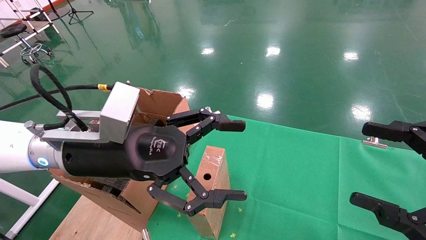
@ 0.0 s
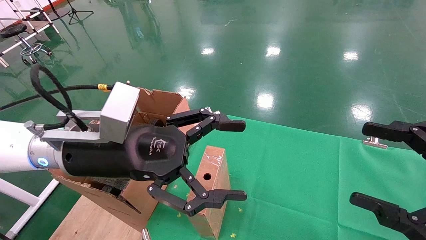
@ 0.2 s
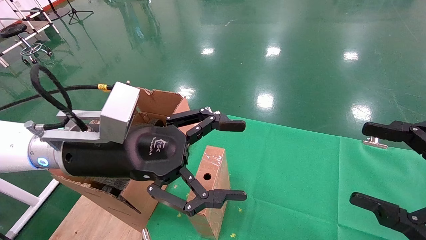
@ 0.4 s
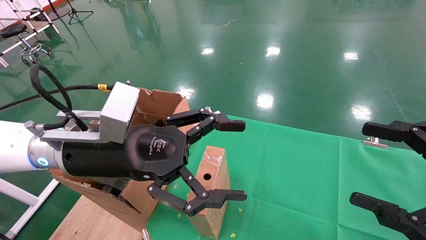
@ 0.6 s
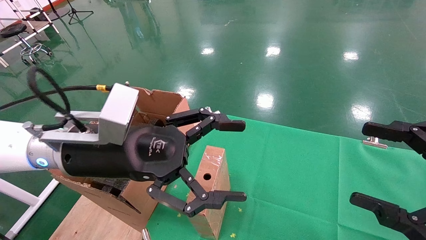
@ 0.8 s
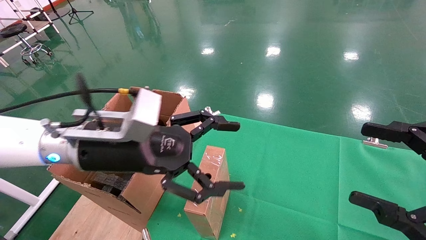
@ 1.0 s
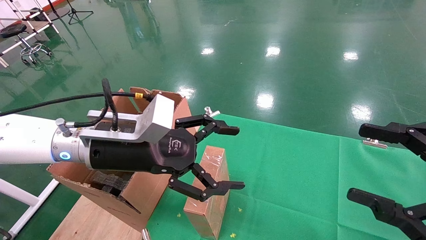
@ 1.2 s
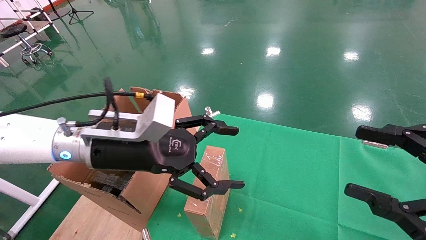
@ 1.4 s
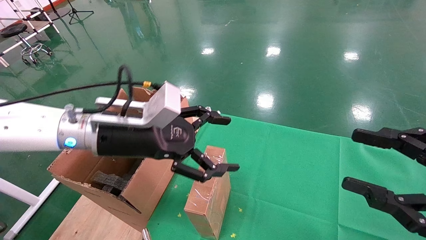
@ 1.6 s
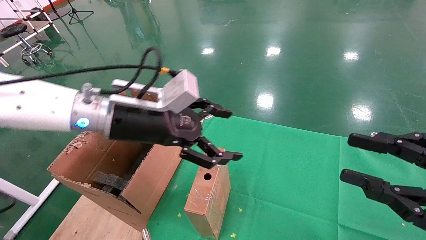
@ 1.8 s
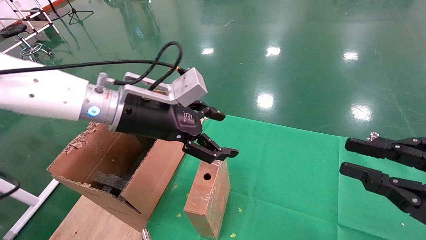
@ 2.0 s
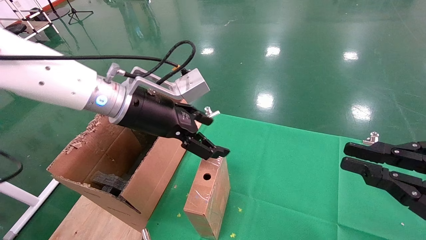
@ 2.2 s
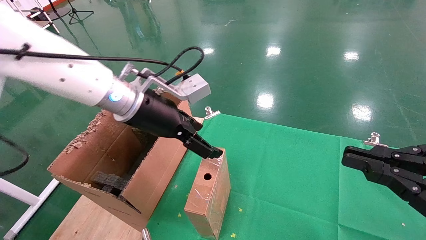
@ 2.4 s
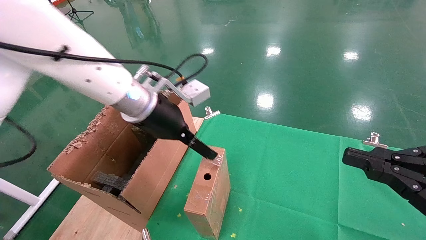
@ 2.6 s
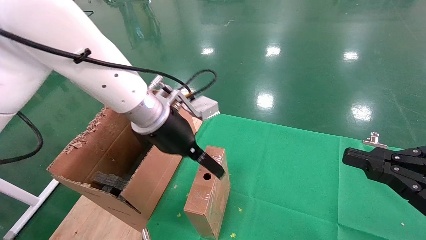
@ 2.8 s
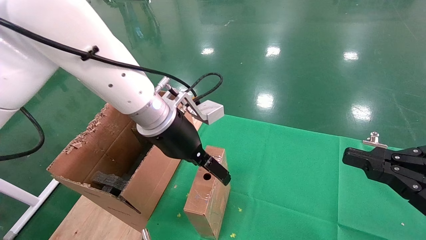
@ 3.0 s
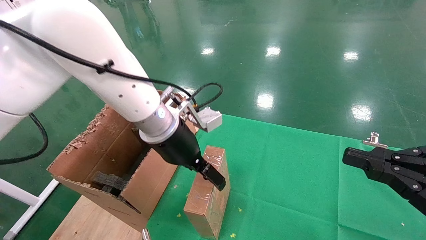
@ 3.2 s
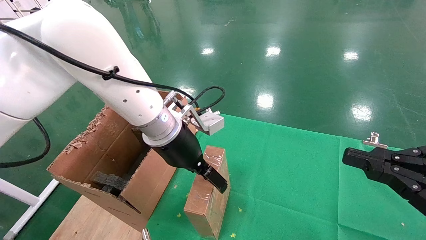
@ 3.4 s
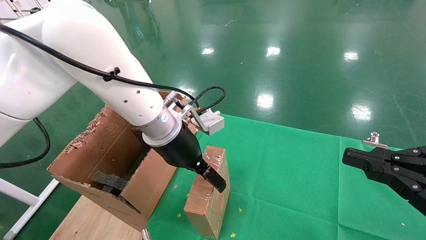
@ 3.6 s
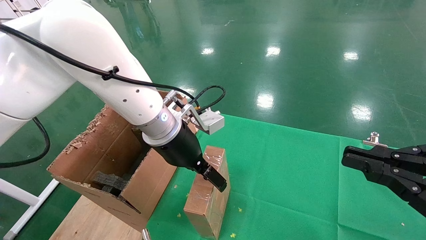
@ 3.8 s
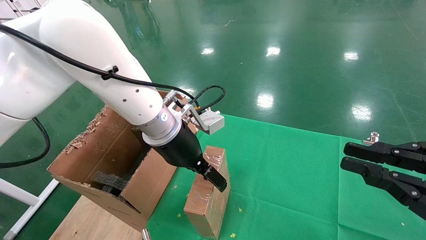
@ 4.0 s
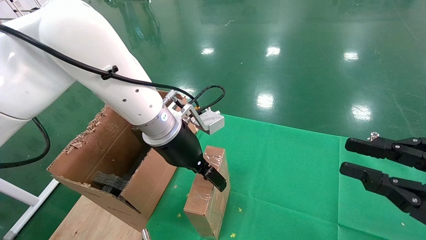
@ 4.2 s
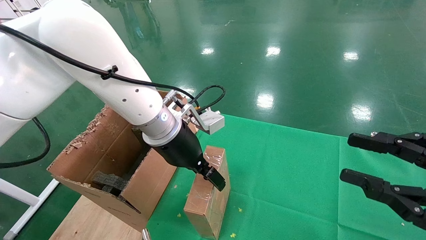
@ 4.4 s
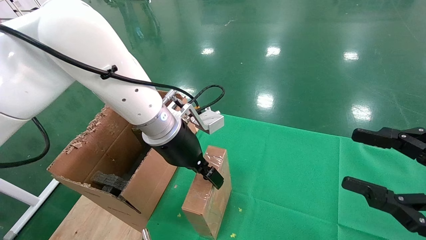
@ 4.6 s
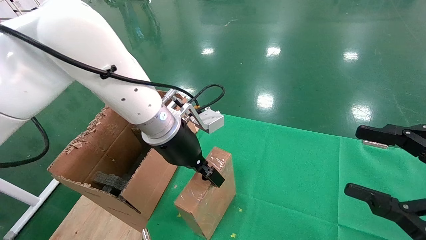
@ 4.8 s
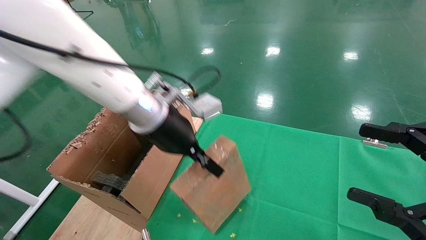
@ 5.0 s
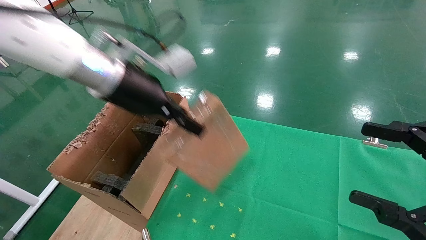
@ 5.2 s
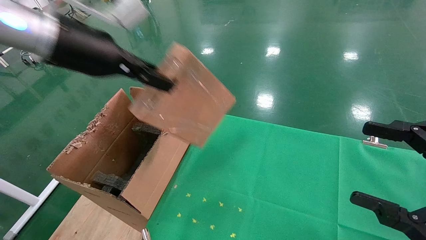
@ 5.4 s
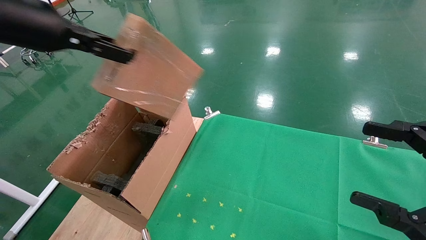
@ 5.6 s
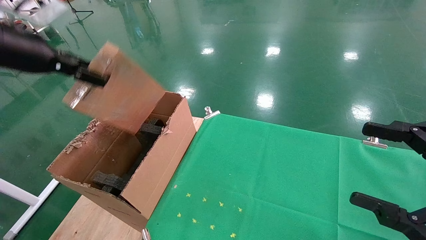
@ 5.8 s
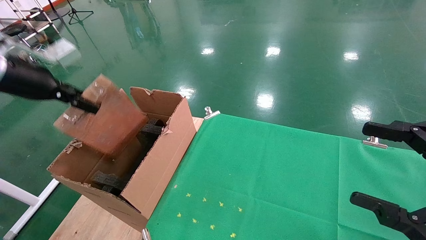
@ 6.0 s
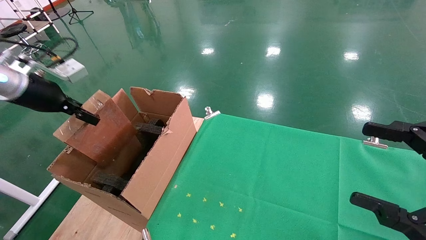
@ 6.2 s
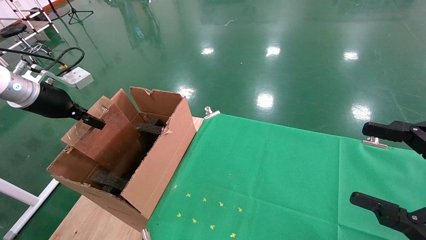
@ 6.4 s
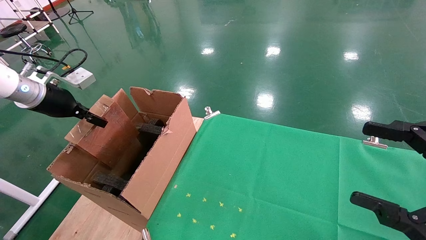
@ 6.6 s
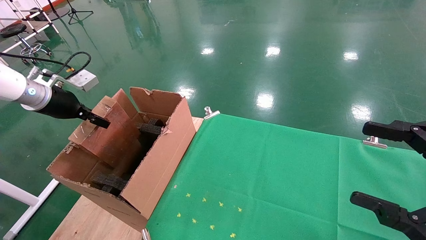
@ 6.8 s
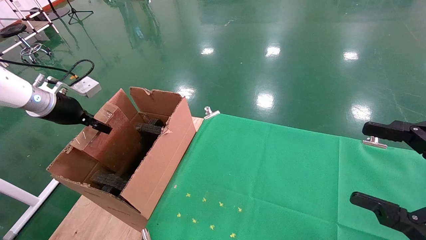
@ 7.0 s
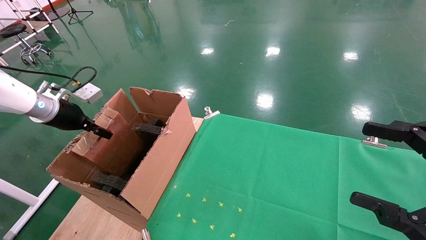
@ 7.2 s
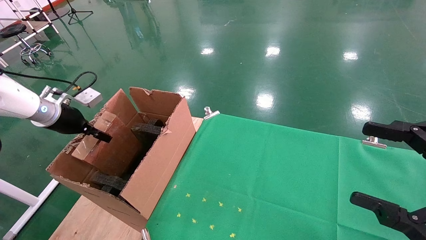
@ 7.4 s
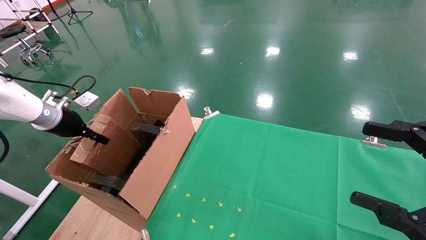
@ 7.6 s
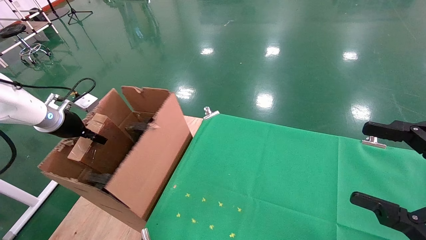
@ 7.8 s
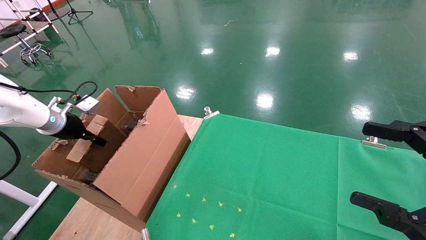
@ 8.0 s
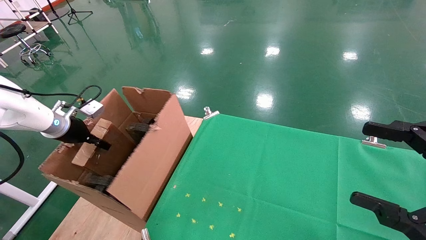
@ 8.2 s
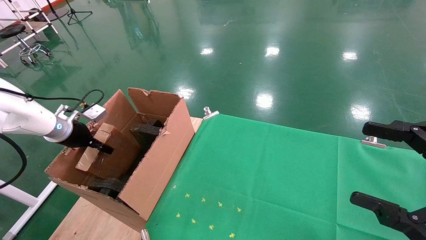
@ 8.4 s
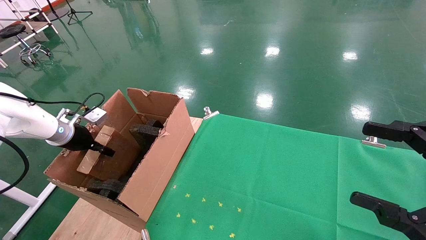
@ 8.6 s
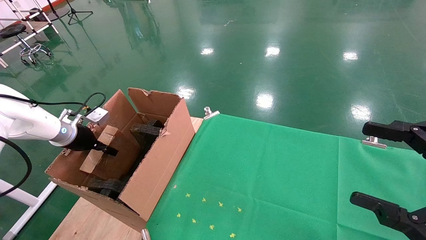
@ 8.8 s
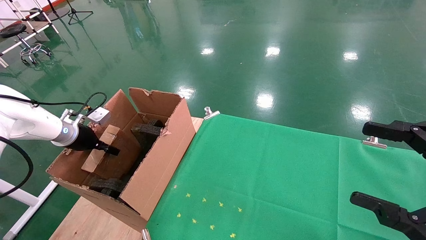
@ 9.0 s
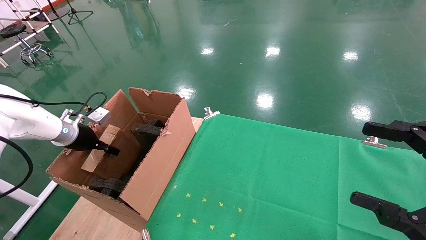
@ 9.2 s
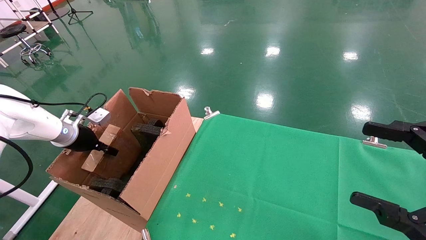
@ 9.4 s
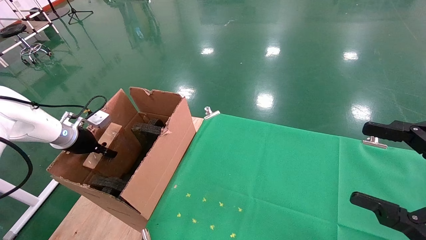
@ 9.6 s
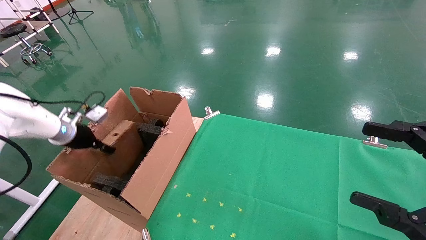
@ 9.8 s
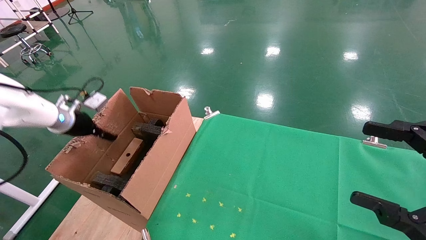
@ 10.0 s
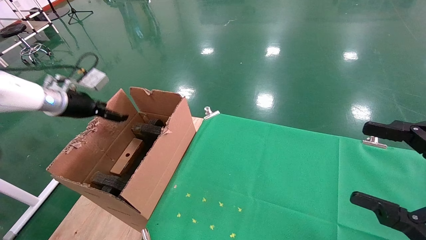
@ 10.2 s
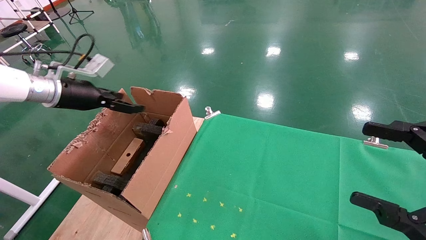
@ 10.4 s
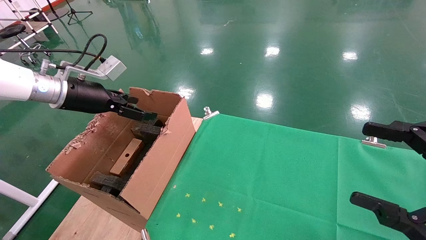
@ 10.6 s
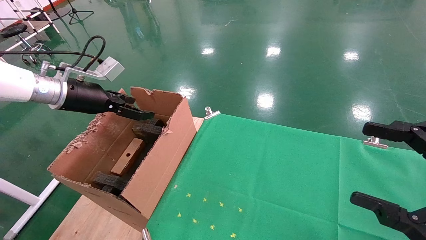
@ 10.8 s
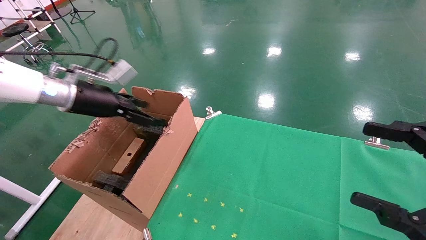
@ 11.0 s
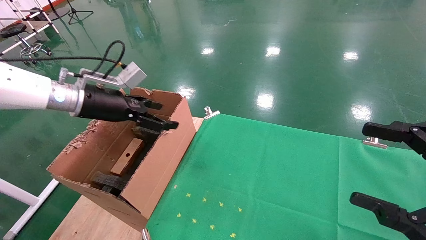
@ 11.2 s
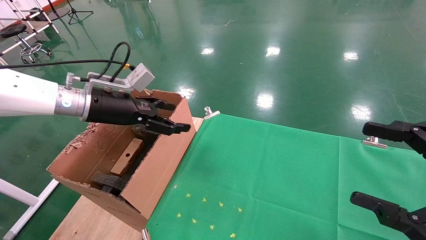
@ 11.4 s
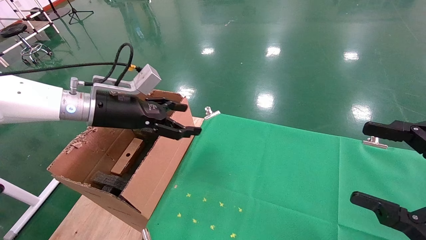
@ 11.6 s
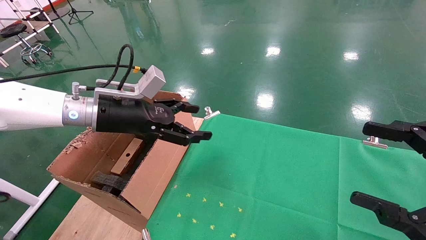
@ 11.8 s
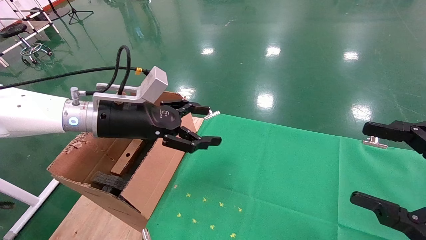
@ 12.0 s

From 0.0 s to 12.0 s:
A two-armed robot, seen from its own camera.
Task of the whole recording: using a robotic arm to pick up a cardboard box and palace it the carton.
Step, from 1.0 s to 4.8 s: Pick up the mouse and the power cord paper box.
Step, from 5.0 s to 10.2 s: Place the mouse and the power cord paper box into the container.
From 1.6 s to 3.0 s: The left gripper moves to the right, roughly 5 cm, while the right gripper closes up.
From 3.0 s to 4.4 s: There are only small adjustments of the grippers.
From 4.4 s to 6.0 s: The right gripper opens up, while the left gripper goes approximately 30 cm to the left, and closes.
From 6.0 s to 7.6 s: The left gripper goes approximately 15 cm downward, forward and to the left.
From 7.6 s to 9.0 s: The left gripper shifts roughly 5 cm downward.
From 9.0 s to 10.4 s: The left gripper heads upward and to the right, covering some 15 cm, and opens its fingers.
From 10.4 s to 12.0 s: The left gripper is displaced to the right by approximately 15 cm.

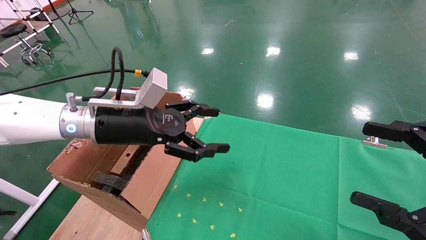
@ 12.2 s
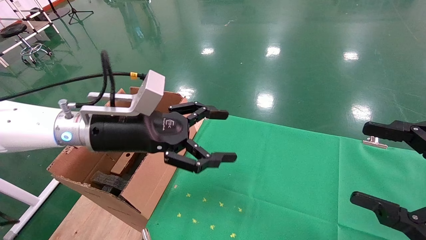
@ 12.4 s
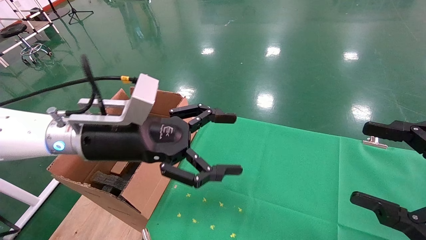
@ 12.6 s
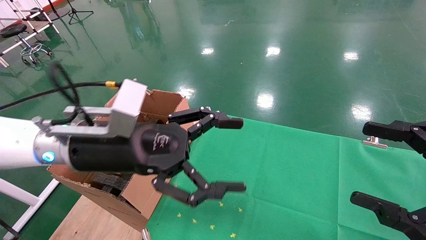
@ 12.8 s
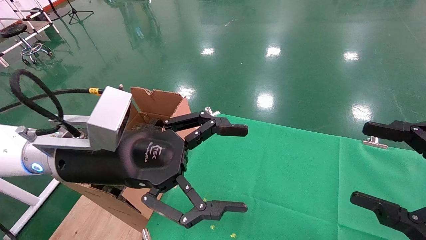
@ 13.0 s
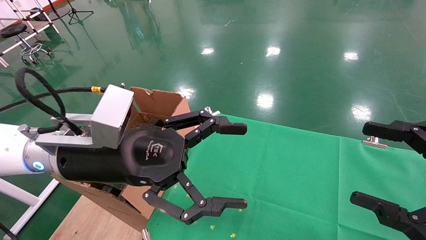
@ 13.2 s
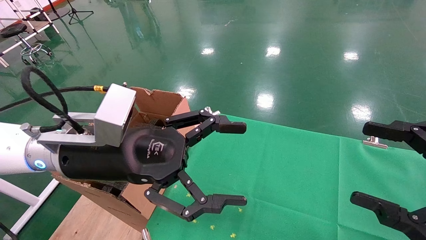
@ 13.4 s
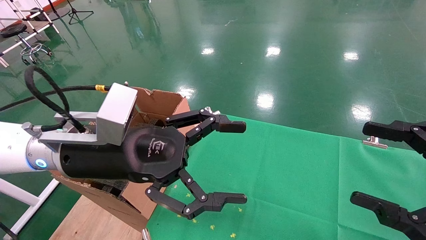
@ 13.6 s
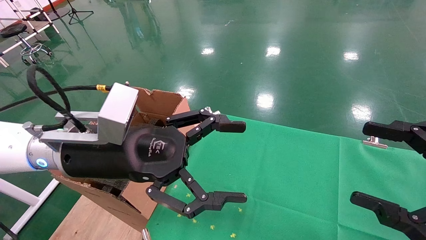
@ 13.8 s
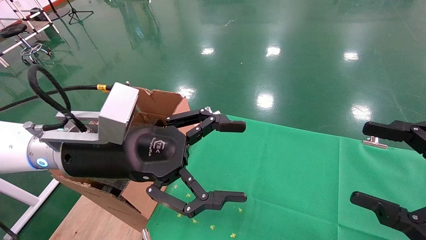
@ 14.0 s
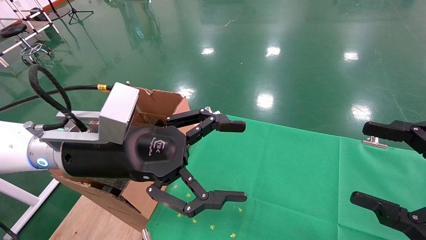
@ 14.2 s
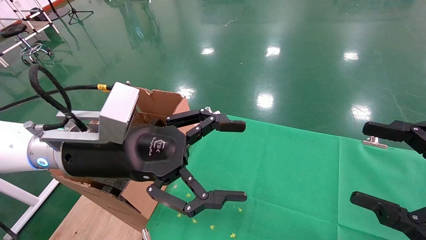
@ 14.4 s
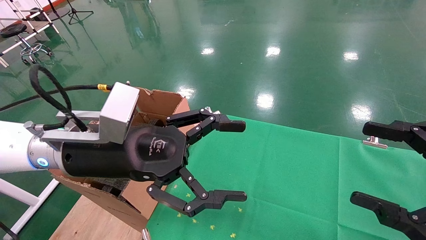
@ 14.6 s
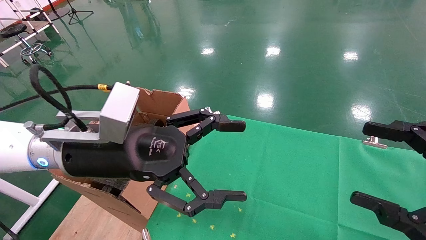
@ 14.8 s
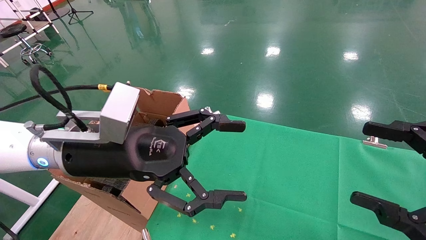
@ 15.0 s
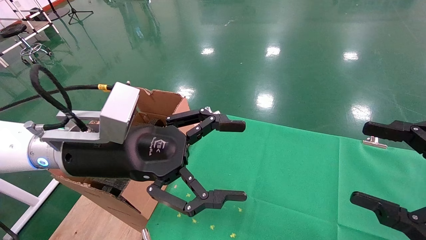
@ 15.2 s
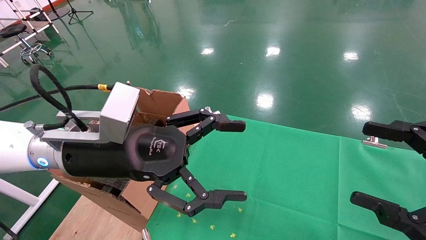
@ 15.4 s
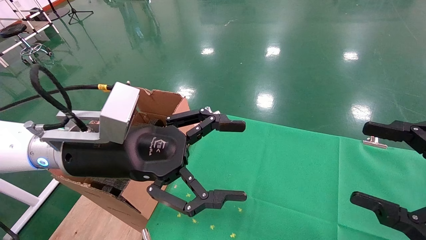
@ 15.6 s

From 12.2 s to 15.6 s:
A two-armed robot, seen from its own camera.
Task of the whole recording: using a robotic arm to pick up a cardboard box and palace it the carton.
From 12.2 s to 13.8 s: The left gripper moves backward, approximately 10 cm.
From 13.8 s to 15.6 s: Neither gripper changes place.

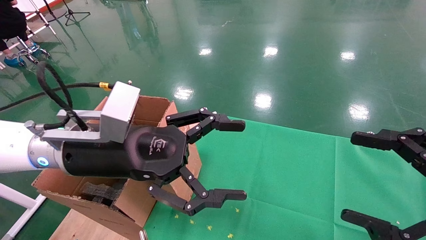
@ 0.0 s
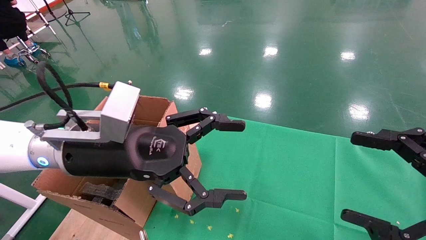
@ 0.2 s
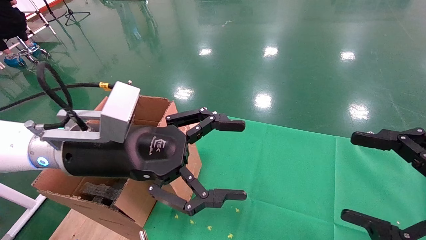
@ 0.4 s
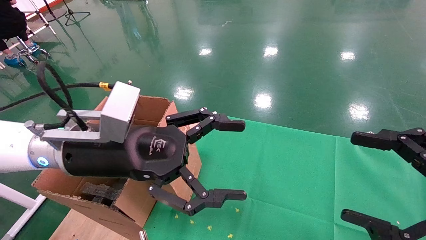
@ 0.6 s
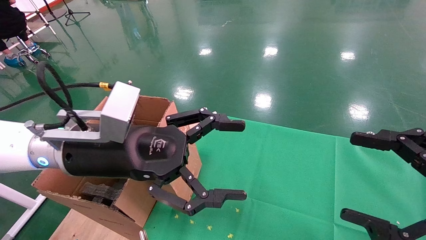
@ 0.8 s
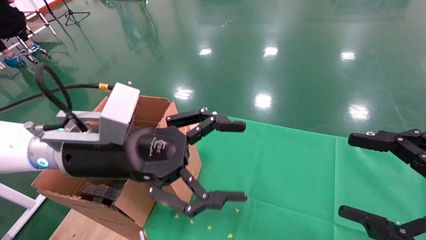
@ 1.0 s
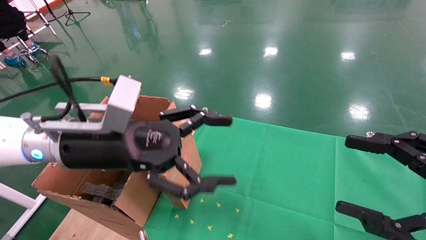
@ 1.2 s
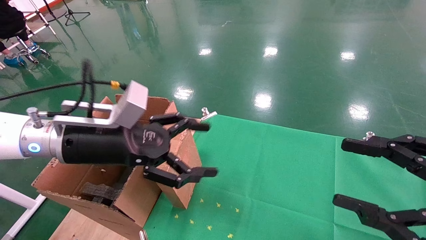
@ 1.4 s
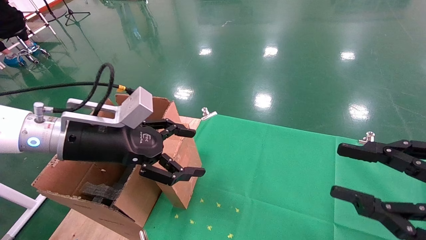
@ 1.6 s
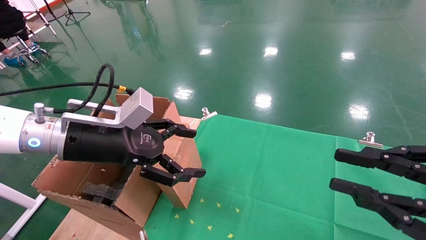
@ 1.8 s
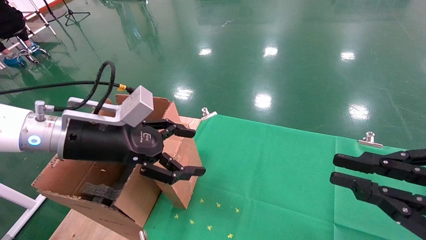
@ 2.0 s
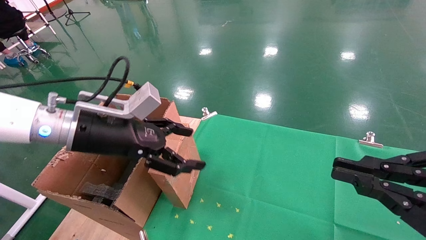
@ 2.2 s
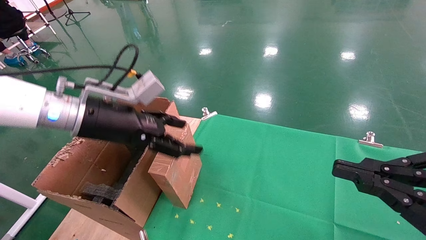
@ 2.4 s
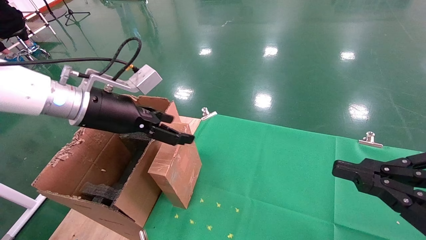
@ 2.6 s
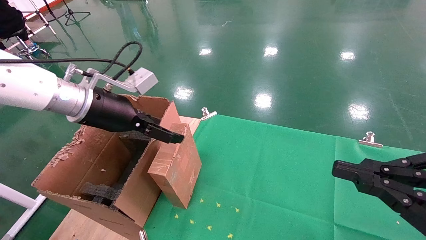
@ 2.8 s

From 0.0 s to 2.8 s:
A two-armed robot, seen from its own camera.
Task of the whole recording: using a robotic arm to pick up a cardboard box and palace it the carton.
From 1.4 s to 2.8 s: The right gripper closes up; the left gripper goes approximately 5 cm forward.
